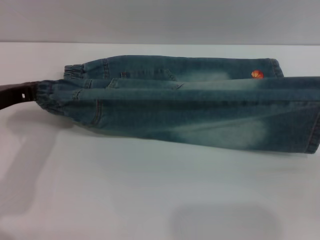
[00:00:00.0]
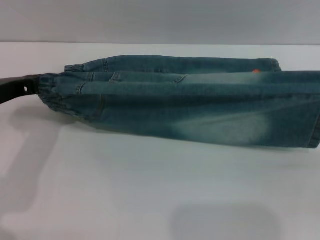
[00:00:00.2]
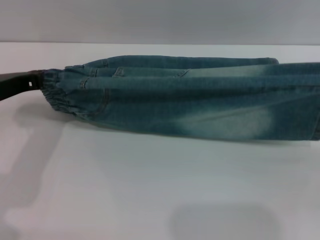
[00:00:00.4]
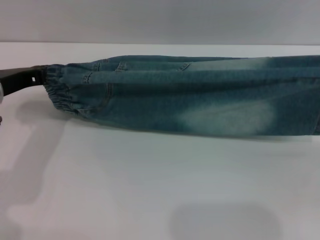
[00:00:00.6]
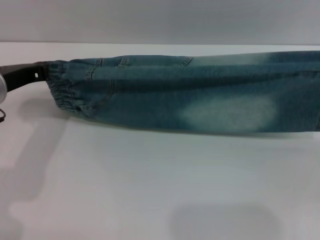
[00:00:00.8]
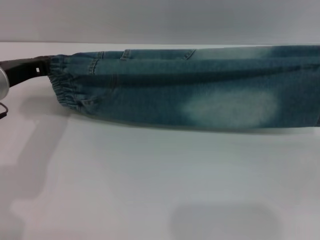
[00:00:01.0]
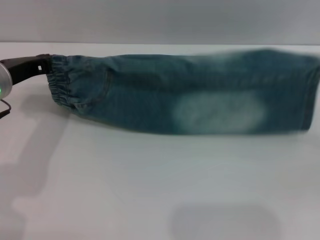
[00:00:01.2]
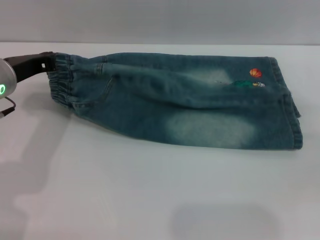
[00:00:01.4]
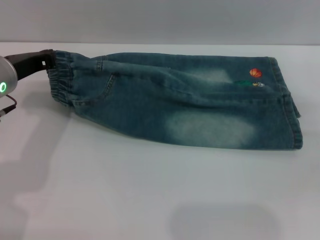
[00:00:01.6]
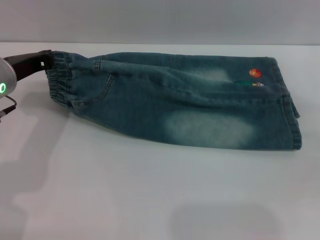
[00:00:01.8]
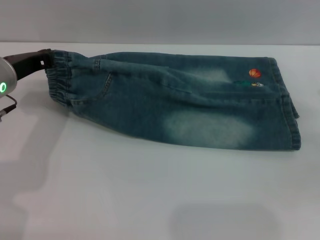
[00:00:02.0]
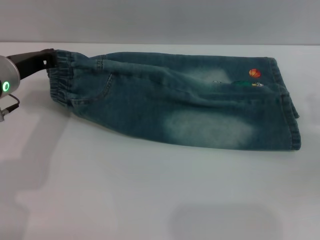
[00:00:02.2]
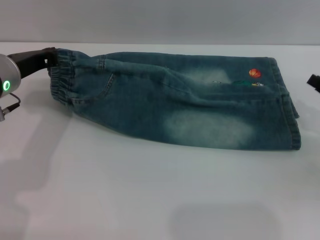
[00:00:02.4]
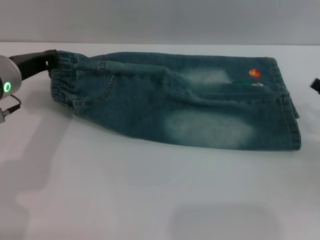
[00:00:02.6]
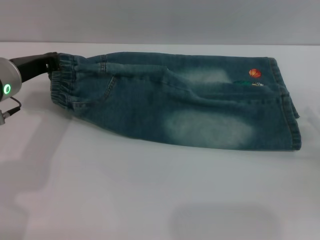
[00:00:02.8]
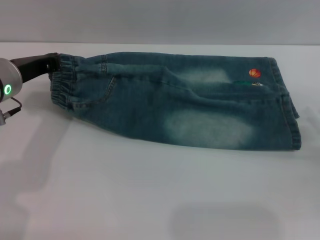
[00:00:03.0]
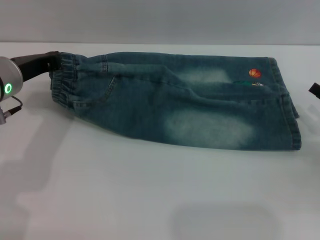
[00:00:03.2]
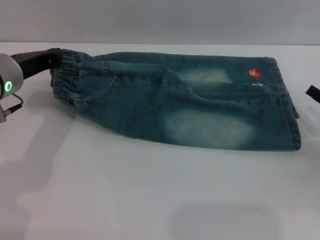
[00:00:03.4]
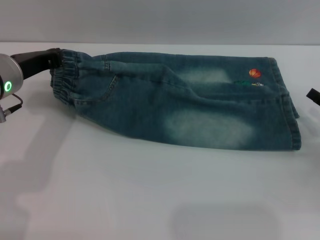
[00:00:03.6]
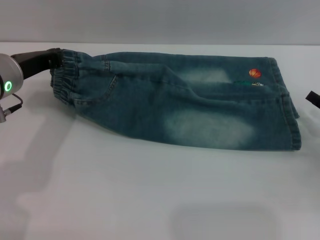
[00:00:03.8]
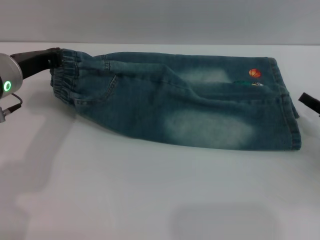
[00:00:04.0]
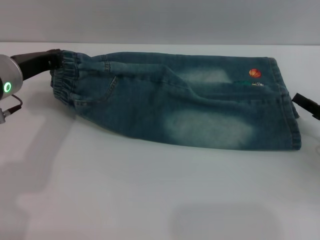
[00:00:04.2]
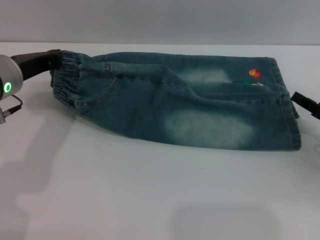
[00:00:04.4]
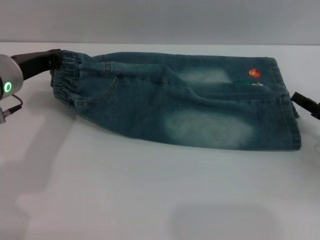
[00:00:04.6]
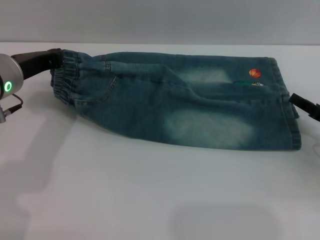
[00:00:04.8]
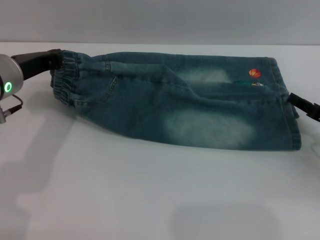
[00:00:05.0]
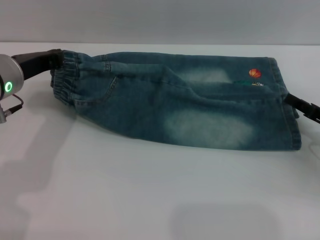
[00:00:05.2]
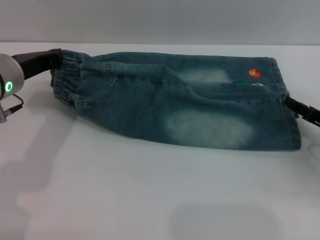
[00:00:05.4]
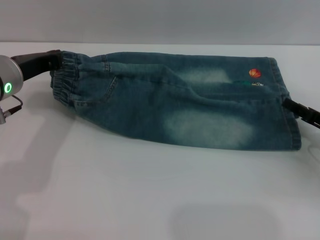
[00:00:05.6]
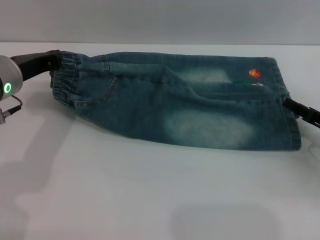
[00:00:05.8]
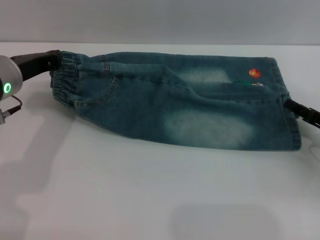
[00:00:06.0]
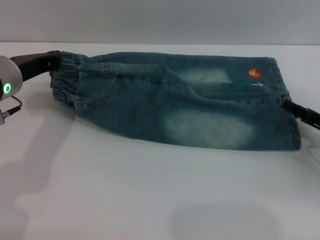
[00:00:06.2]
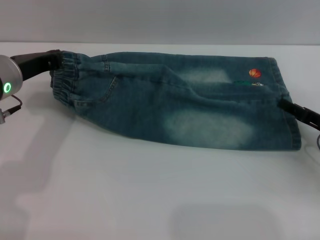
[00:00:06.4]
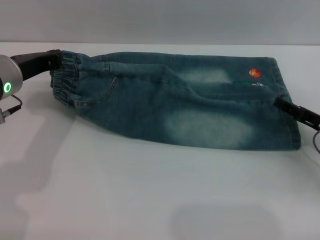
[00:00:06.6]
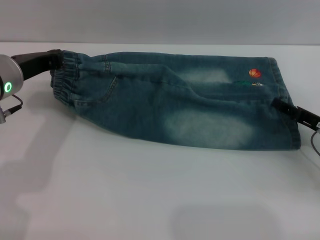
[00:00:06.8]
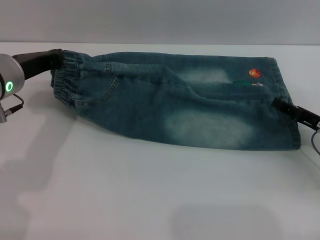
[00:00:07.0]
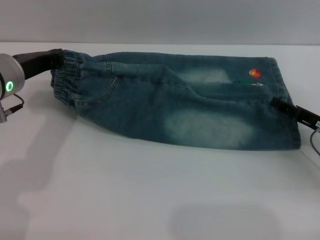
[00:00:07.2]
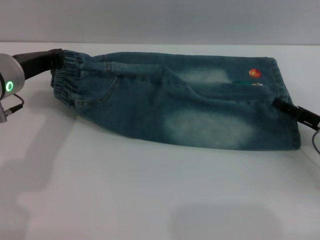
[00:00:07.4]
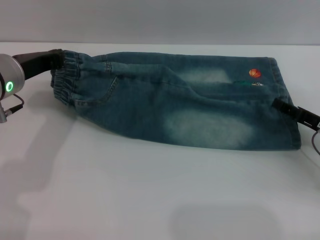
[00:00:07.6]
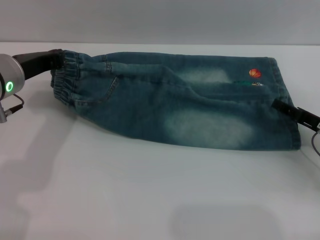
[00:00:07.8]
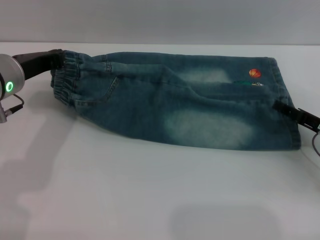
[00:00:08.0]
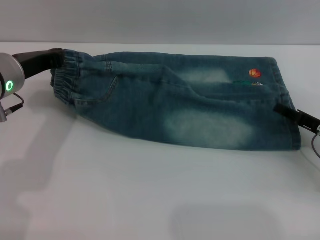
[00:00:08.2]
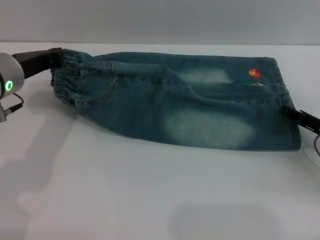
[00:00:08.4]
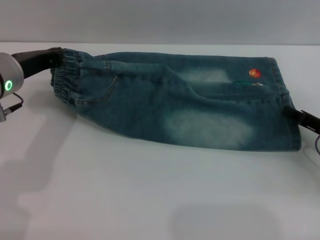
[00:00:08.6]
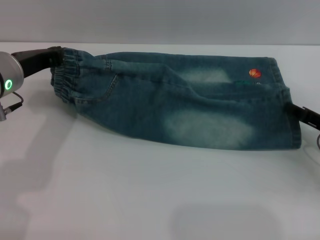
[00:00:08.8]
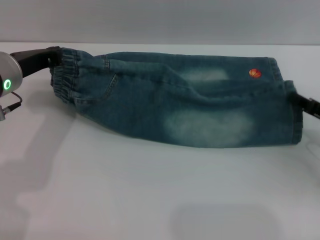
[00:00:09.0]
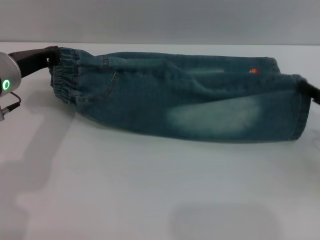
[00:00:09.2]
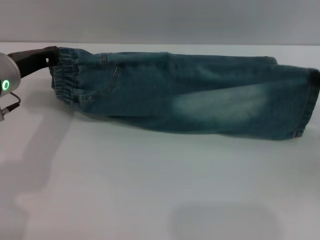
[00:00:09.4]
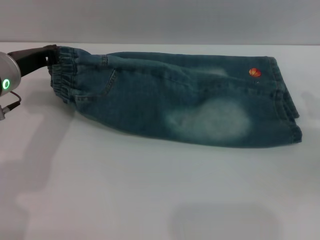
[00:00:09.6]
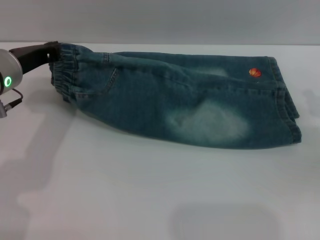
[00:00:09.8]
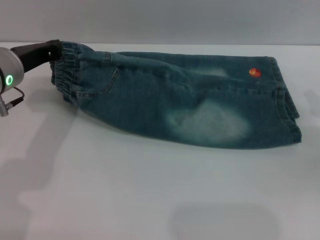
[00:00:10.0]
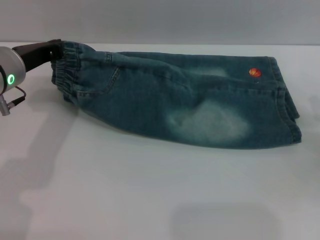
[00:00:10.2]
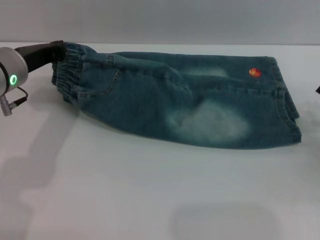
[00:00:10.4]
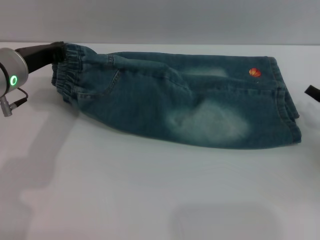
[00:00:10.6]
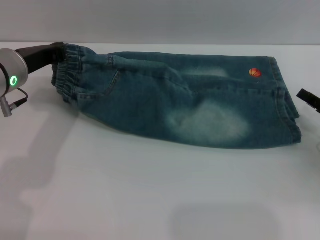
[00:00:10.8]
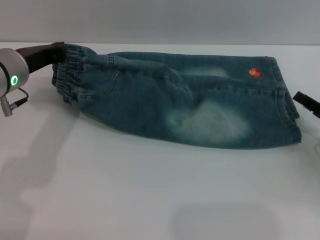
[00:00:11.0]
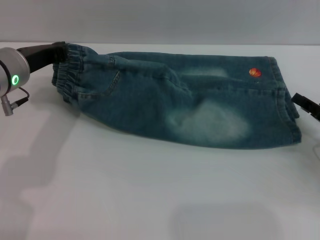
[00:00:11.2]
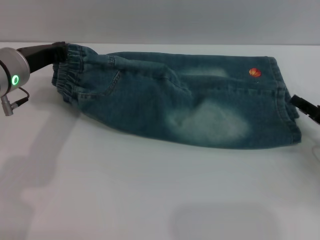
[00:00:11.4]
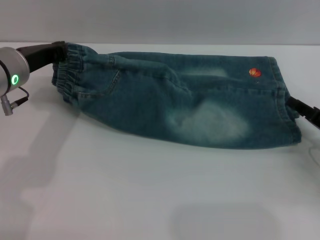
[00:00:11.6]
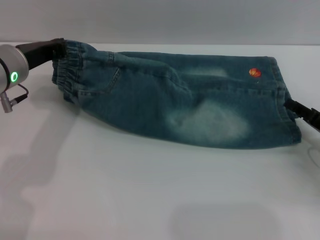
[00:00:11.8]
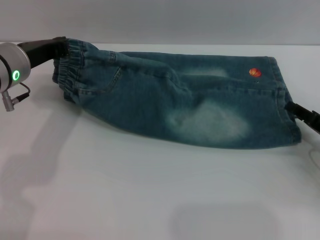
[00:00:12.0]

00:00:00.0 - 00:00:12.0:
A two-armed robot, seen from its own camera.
00:00:00.0 - 00:00:01.6: The grippers both shift forward by approximately 5 cm.
00:00:01.6 - 00:00:03.0: The right gripper goes roughly 5 cm downward, and opens up.
00:00:03.0 - 00:00:04.4: The grippers move only a little.
00:00:04.4 - 00:00:06.0: Both grippers stay put.
00:00:06.0 - 00:00:07.6: The grippers stay close to where they were, moving slightly.
00:00:07.6 - 00:00:09.0: The right gripper closes.
00:00:09.0 - 00:00:10.4: The grippers move only a little.
00:00:10.4 - 00:00:12.0: The right gripper opens up.

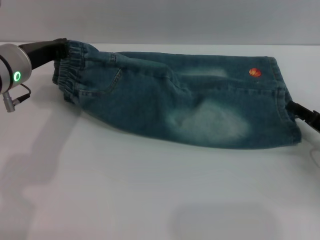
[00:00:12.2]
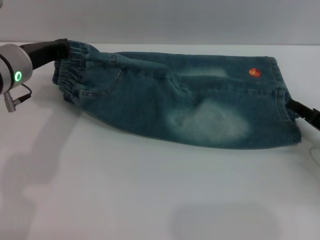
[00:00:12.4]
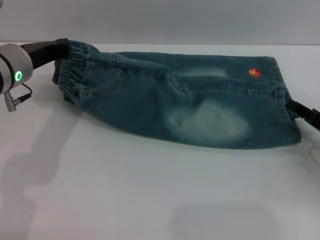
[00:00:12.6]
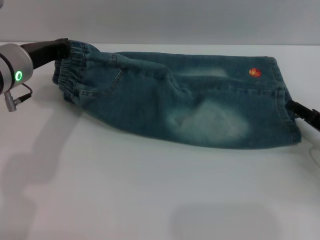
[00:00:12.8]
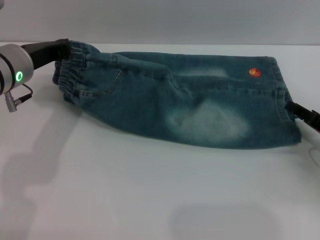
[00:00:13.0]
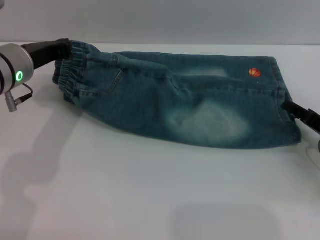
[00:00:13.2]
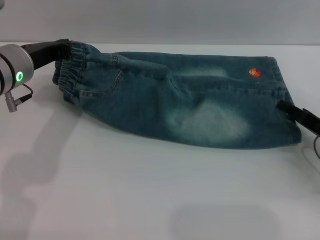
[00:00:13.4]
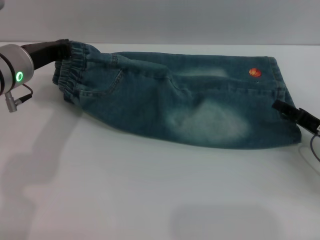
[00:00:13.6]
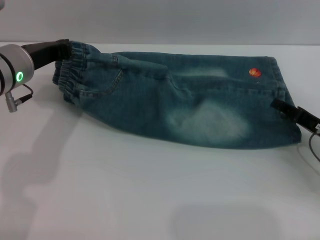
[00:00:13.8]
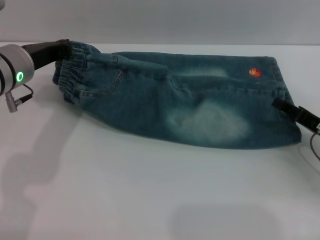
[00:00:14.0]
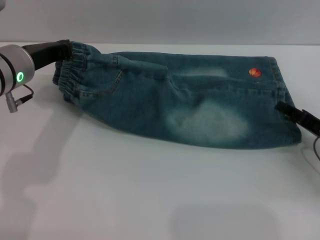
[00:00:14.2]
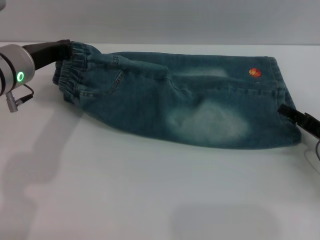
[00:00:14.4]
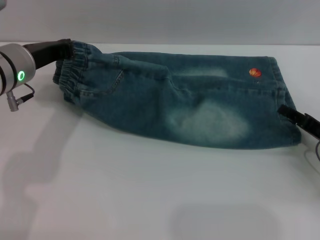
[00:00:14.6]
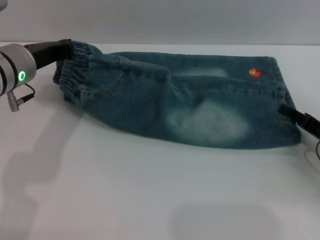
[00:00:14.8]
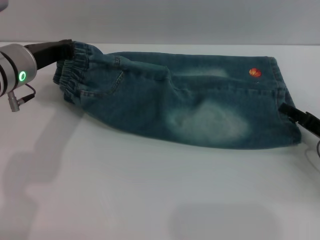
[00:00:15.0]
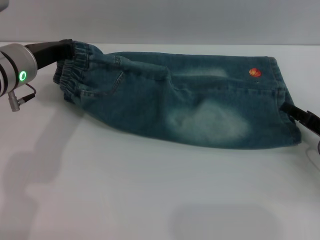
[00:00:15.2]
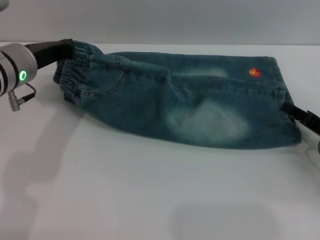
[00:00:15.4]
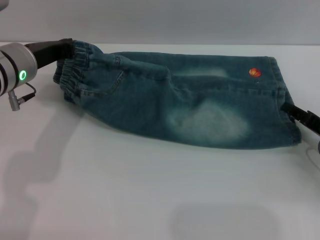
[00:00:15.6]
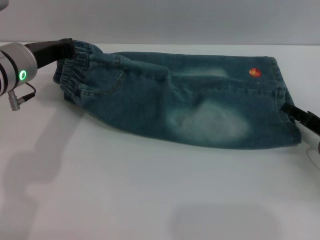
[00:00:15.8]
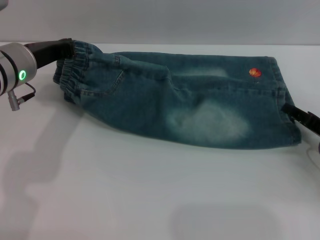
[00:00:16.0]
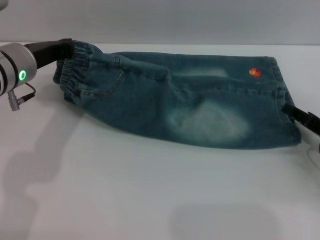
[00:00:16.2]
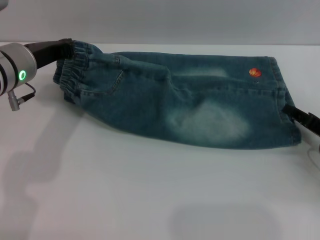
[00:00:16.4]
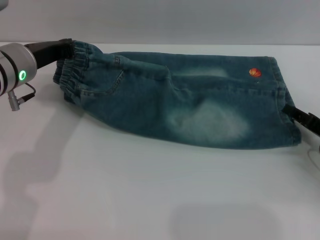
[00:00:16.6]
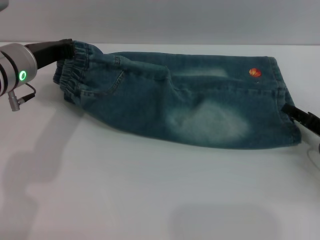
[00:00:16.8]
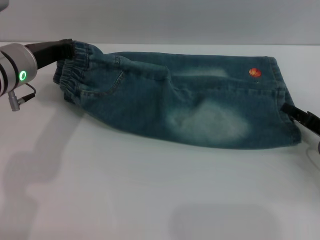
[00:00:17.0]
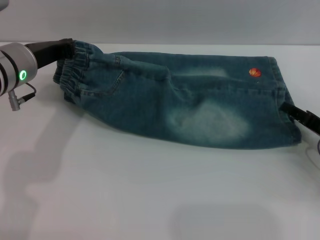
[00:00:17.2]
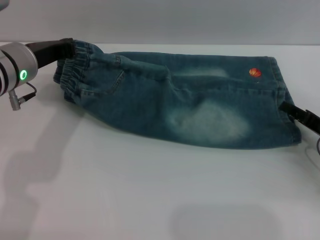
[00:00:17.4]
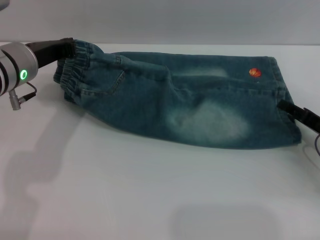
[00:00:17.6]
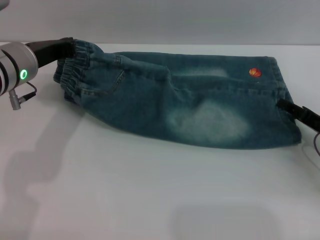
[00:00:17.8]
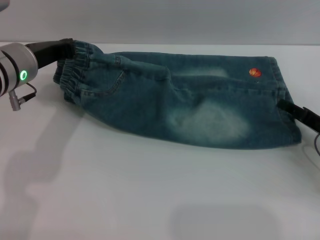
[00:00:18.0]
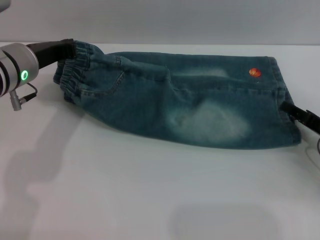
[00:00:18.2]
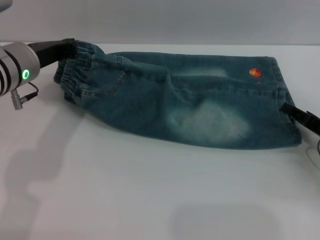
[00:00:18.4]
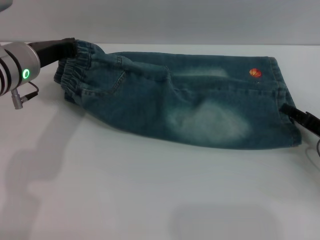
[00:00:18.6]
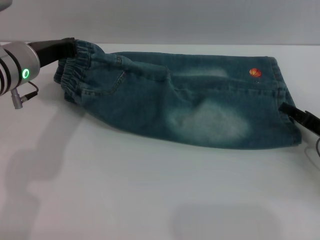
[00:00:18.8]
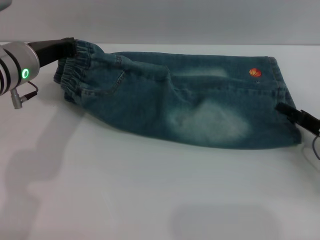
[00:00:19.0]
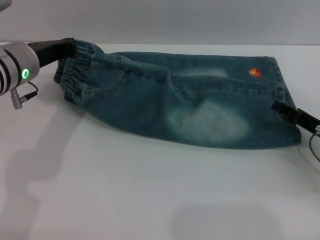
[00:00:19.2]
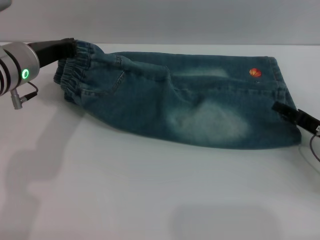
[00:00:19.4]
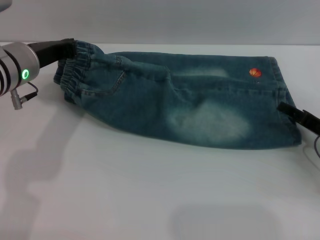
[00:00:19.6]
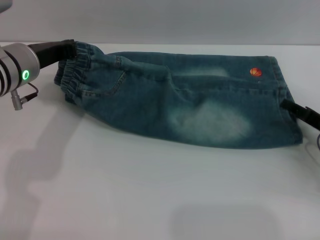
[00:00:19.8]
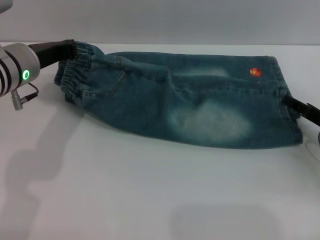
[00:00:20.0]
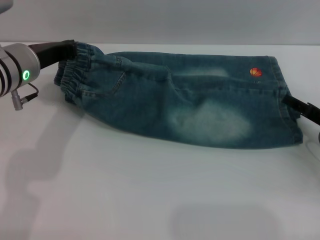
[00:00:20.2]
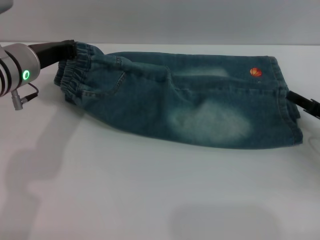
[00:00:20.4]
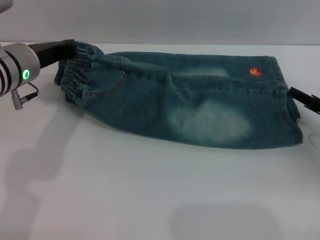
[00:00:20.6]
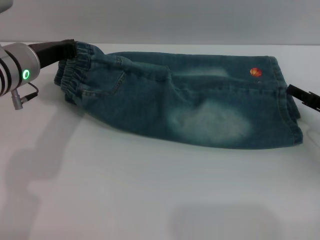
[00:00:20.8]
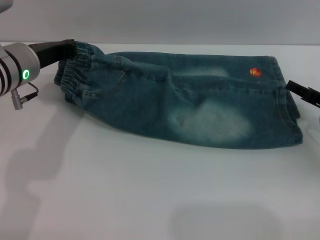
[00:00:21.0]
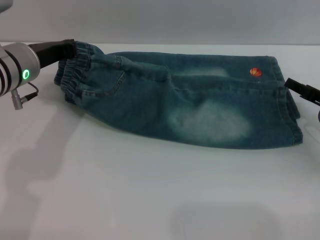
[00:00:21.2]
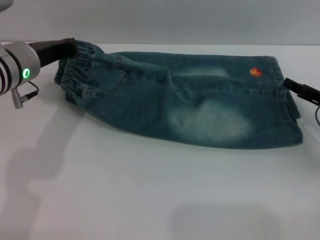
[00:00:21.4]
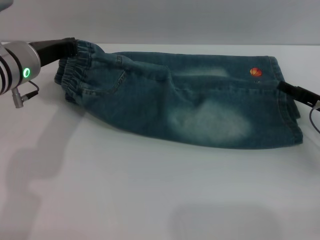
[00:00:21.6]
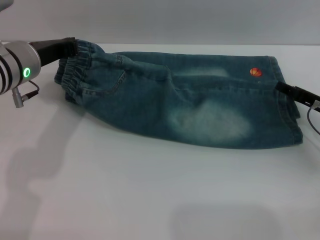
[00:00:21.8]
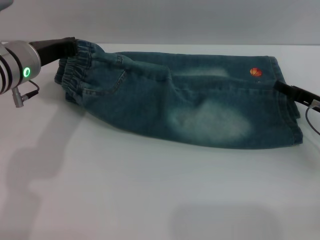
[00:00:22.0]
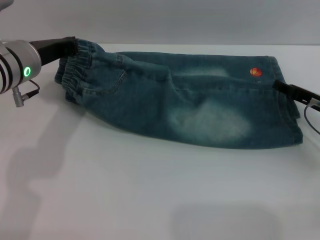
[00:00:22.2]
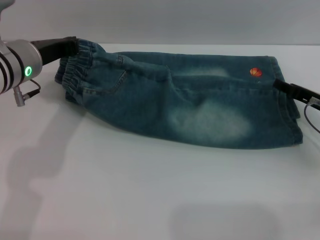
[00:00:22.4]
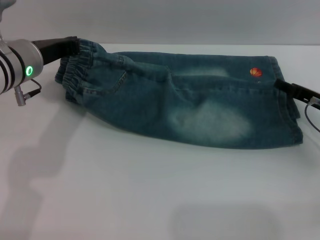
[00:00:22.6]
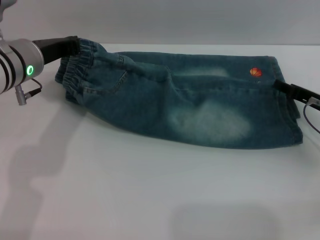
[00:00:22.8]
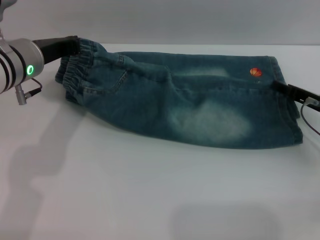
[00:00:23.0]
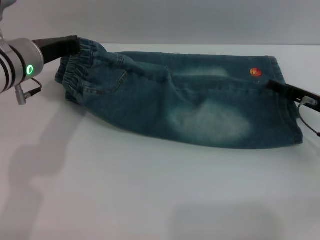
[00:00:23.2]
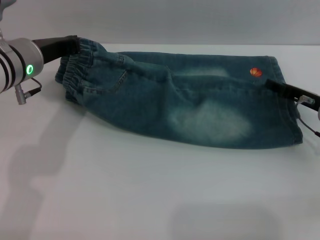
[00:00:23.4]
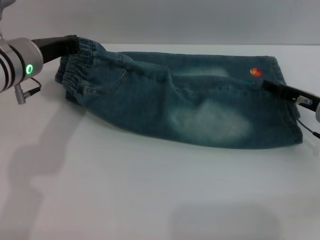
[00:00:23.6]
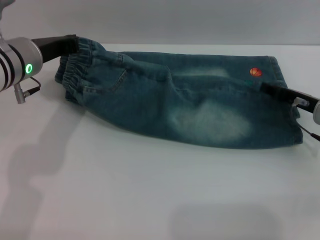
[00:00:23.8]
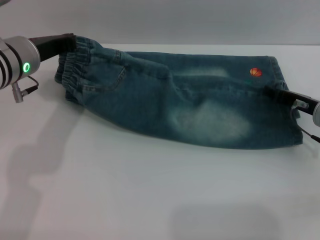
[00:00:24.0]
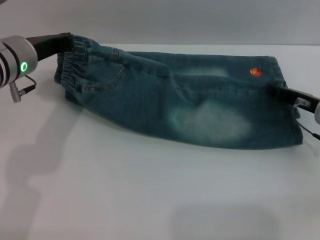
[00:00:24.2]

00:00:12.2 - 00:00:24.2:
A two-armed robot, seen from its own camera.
00:00:12.2 - 00:00:15.2: The grippers stay close to where they were, moving slightly.
00:00:15.2 - 00:00:18.2: Neither gripper changes place.
00:00:18.2 - 00:00:19.8: Both grippers stay about where they are.
00:00:19.8 - 00:00:22.6: The grippers make only small movements.
00:00:22.6 - 00:00:24.2: The right gripper closes up.
